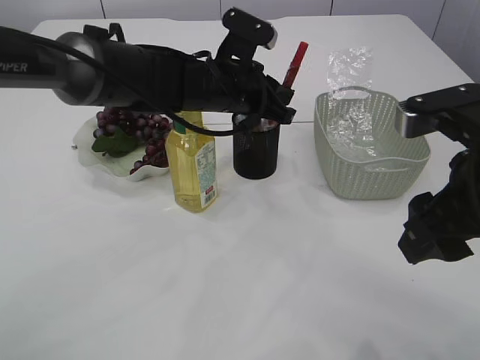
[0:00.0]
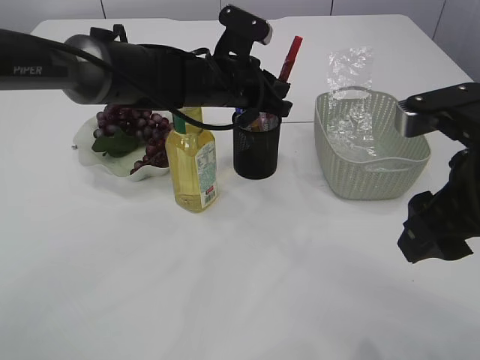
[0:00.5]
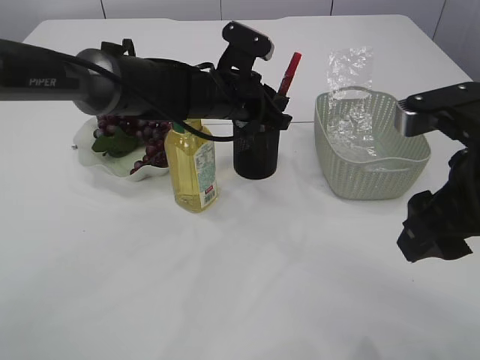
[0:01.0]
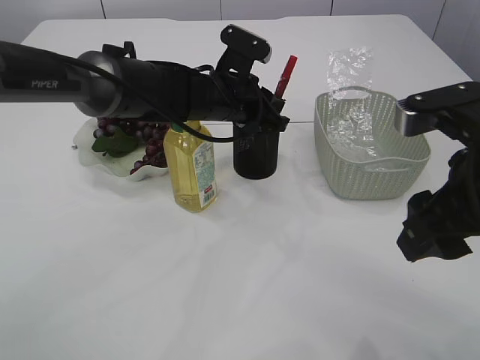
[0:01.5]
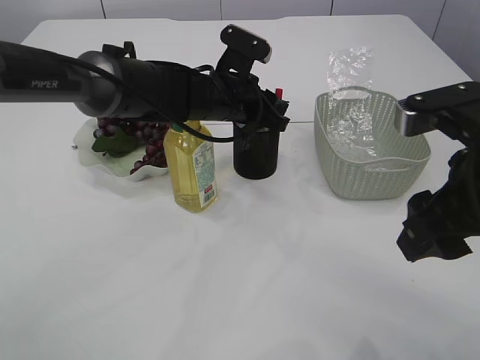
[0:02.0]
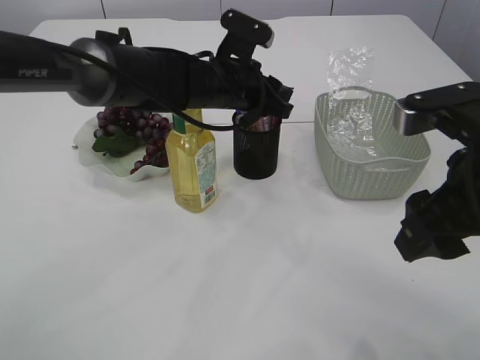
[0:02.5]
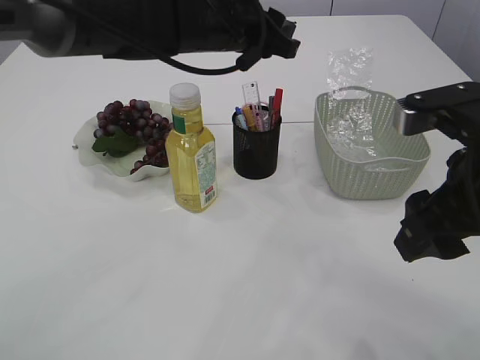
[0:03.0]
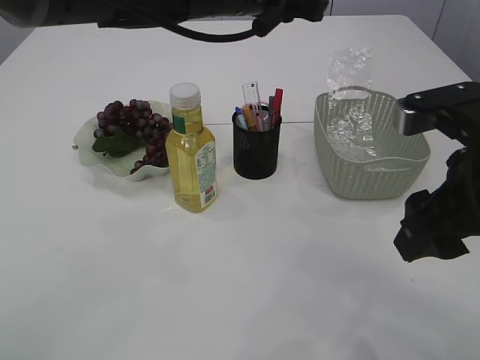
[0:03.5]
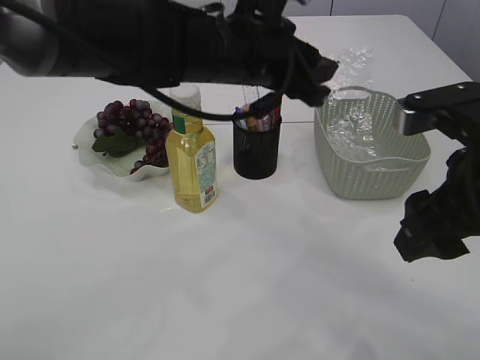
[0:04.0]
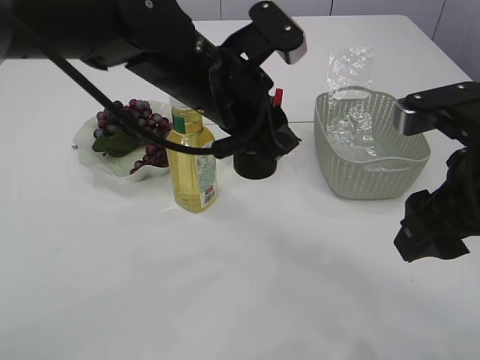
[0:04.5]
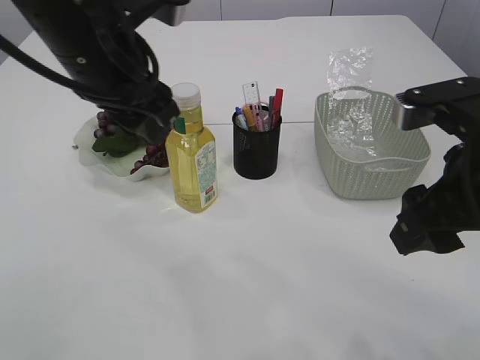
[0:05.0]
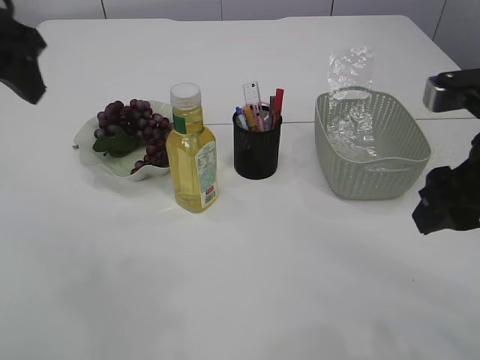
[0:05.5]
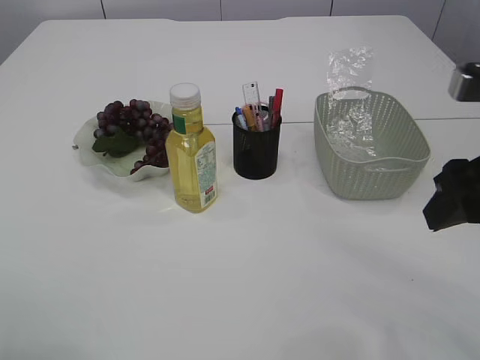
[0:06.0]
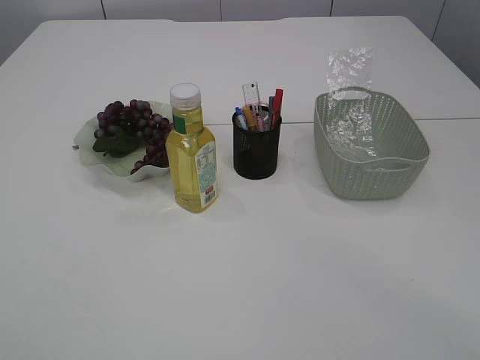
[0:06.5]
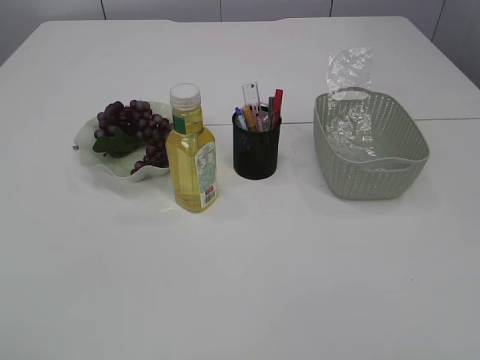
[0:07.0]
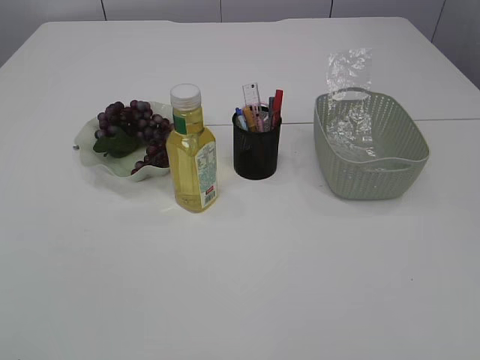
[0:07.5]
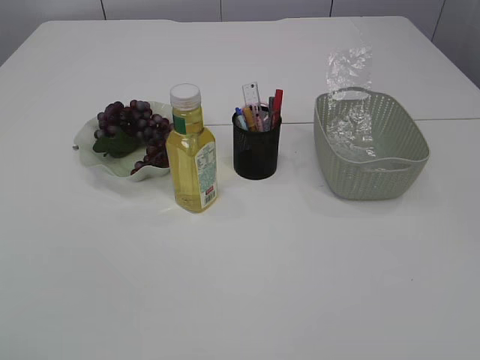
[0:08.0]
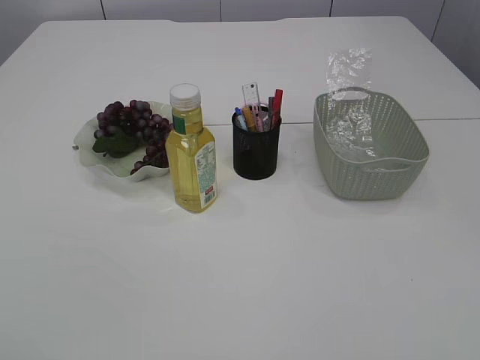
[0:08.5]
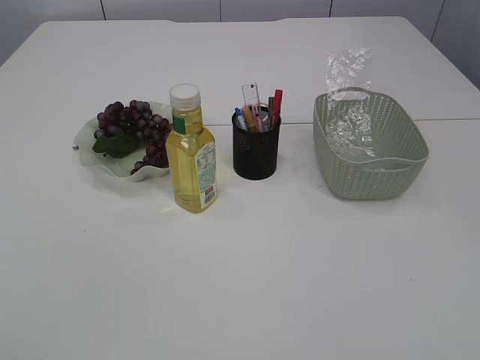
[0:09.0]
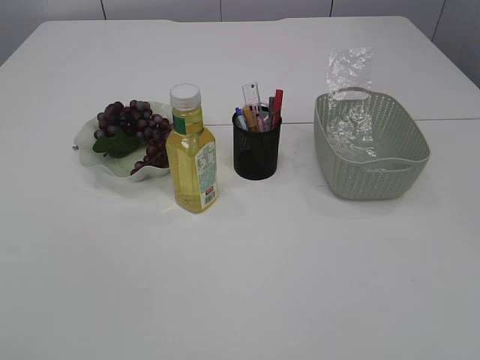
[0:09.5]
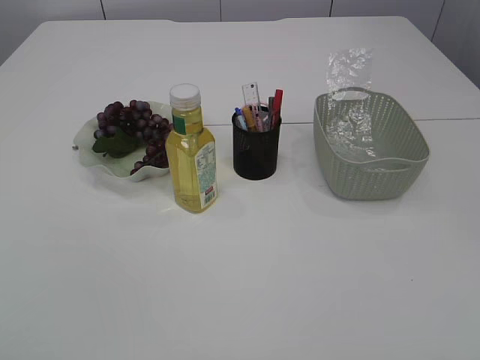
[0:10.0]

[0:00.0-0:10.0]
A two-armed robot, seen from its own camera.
Step, 0:00.0 to 0:02.5: place the red glue into the pen holder.
0:00.0 to 0:02.0: The left gripper opens up.
0:02.0 to 0:04.0: The left gripper is displaced upward and backward by some 15 cm.
0:04.0 to 0:06.0: The left gripper shifts approximately 30 cm to the left and backward.
0:06.0 to 0:08.0: The right gripper is displaced backward by about 25 cm.

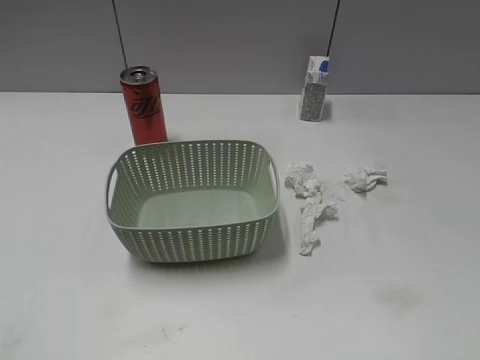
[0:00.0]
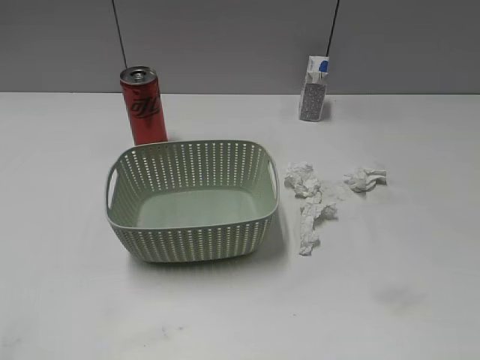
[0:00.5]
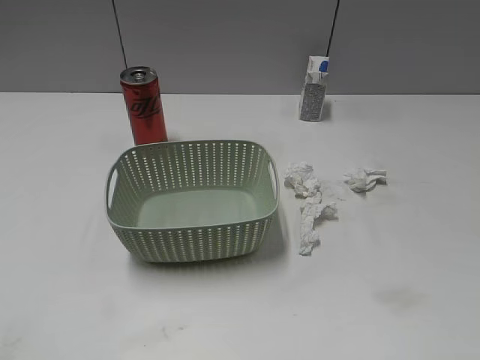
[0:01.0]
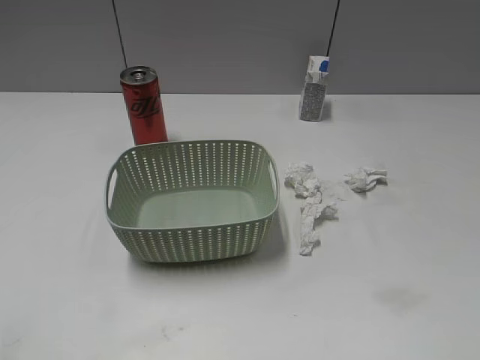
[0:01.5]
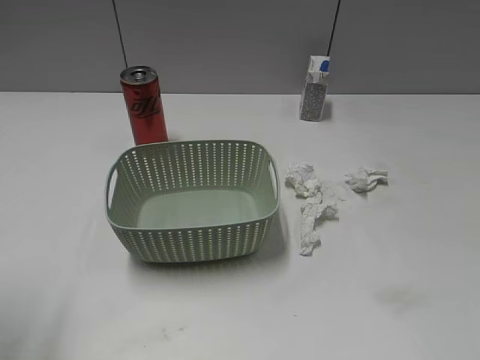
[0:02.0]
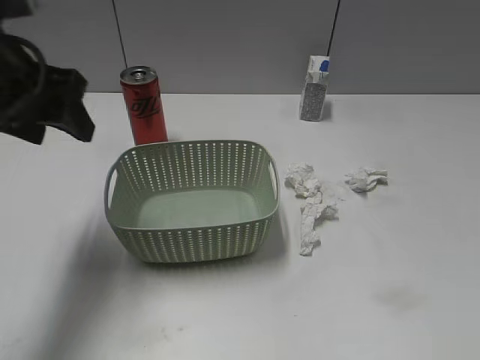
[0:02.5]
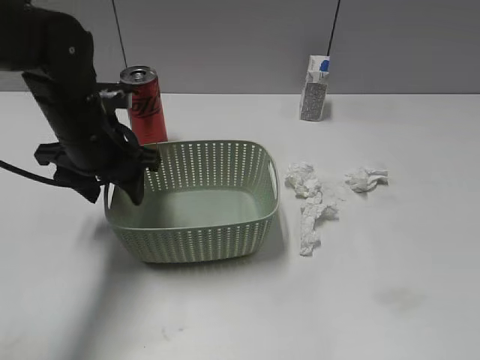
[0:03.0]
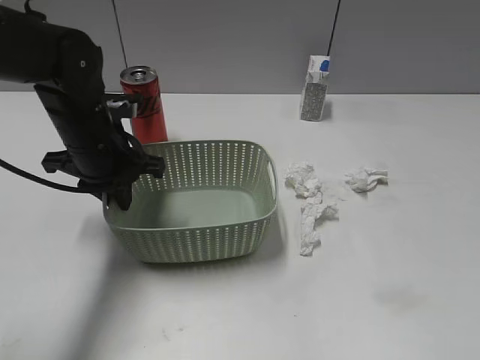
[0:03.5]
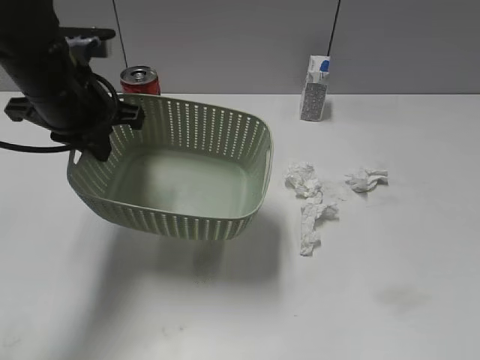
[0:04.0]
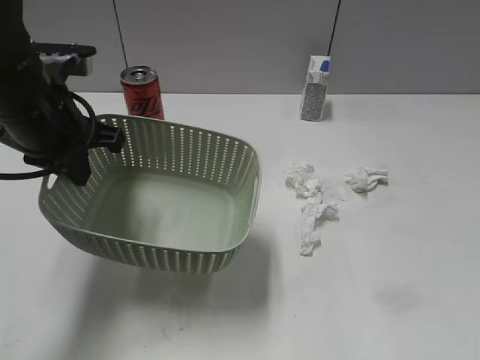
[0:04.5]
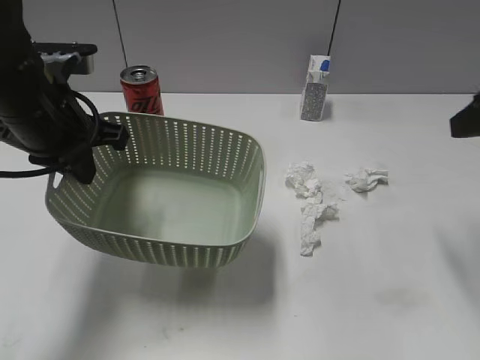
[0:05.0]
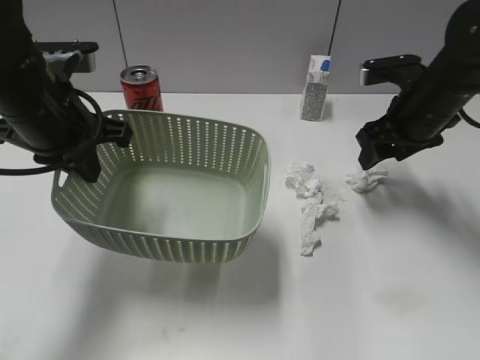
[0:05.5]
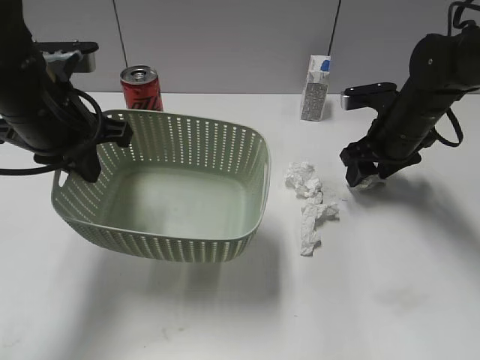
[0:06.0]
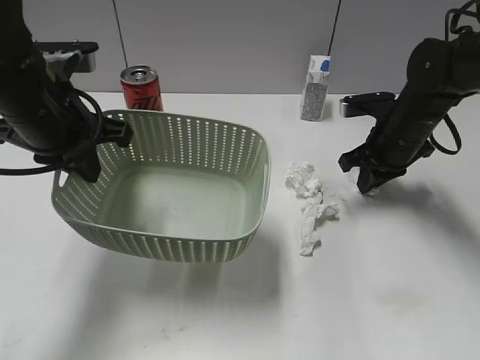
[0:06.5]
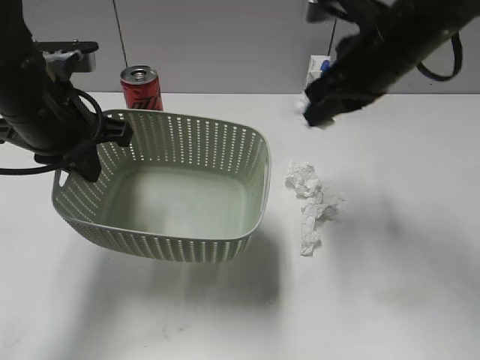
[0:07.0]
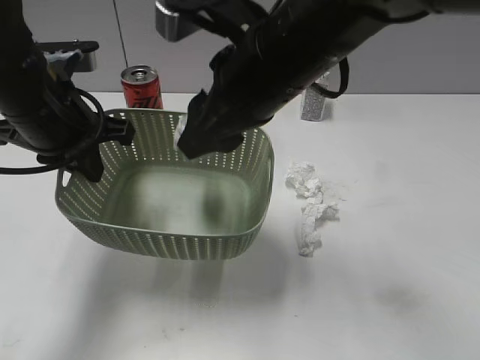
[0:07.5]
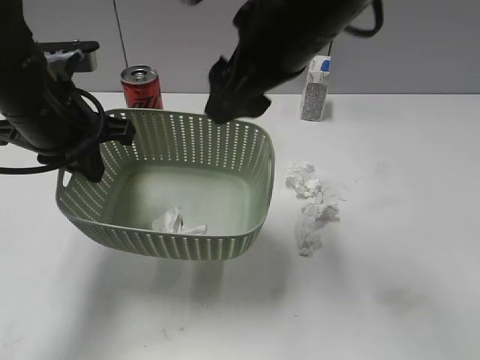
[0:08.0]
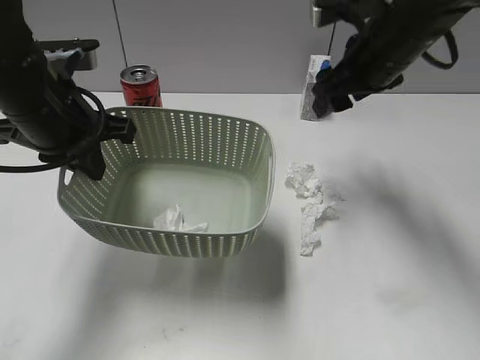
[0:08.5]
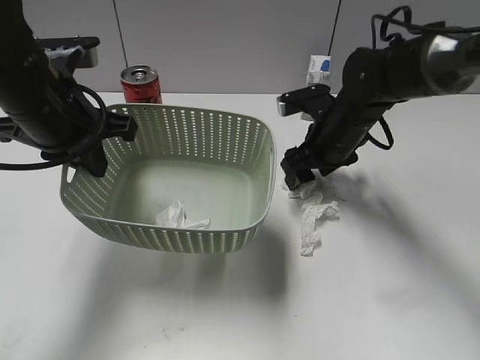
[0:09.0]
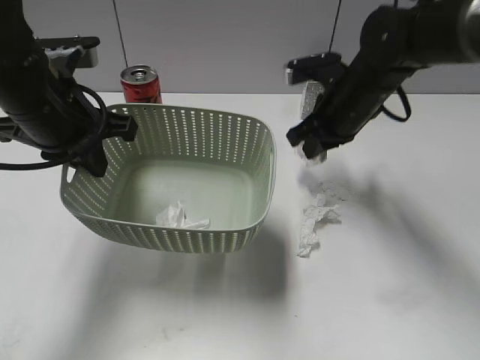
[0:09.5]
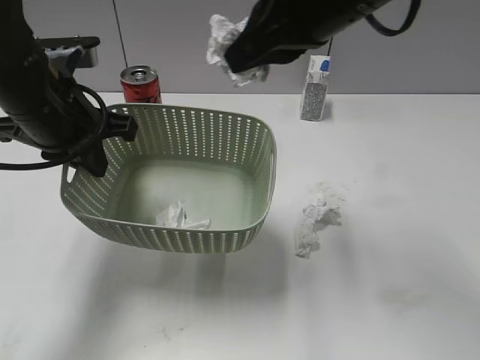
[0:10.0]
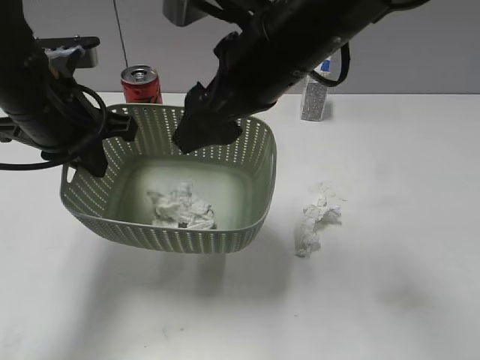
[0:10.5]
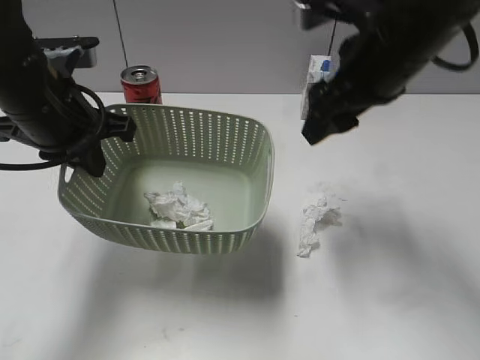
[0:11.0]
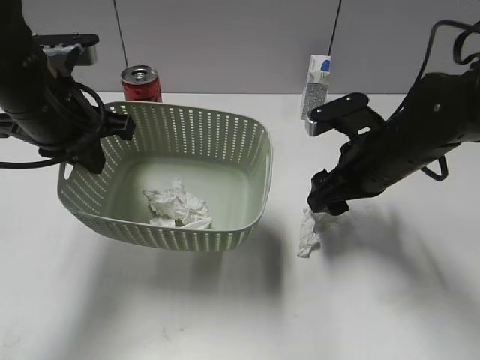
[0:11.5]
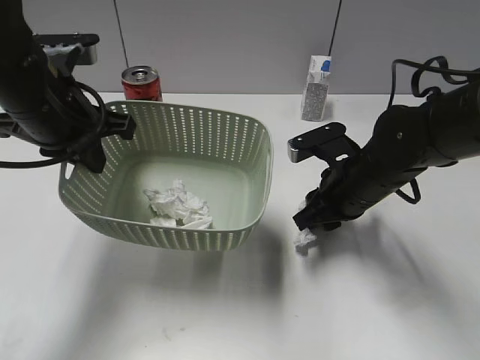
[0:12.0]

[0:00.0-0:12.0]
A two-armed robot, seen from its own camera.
Step, 0:01.5 to 0:03.5: Grasp the basket with left gripper.
Step, 0:04.0 to 0:04.5: Lift the basket with left gripper.
Step, 0:05.0 to 0:06.5: Grasp the waste paper with right gripper.
Step, 0:07.0 to 0:07.5: Place the waste paper in the basket with right gripper.
Step, 0:08.0 to 0:09.0: Grasp the waste paper with right gripper.
Step, 0:09.5 to 0:10.5: Place the waste paper in the basket with right gripper.
0:02.0 to 0:04.0: The left gripper goes roughly 25 cm forward, to the right and downward, and closes up.
0:04.0 to 0:06.0: The right gripper goes approximately 40 cm forward.
0:06.0 to 0:08.0: The right gripper is displaced upward, to the left and backward by some 30 cm, and closes and opens again.
0:08.0 to 0:10.0: The right gripper moves about 20 cm downward and comes back, and closes up.
0:10.0 to 0:12.0: The right gripper heads downward, covering approximately 20 cm, and opens.

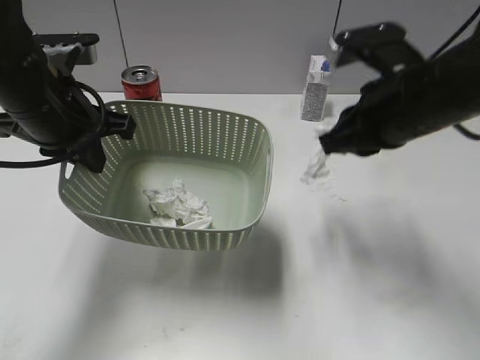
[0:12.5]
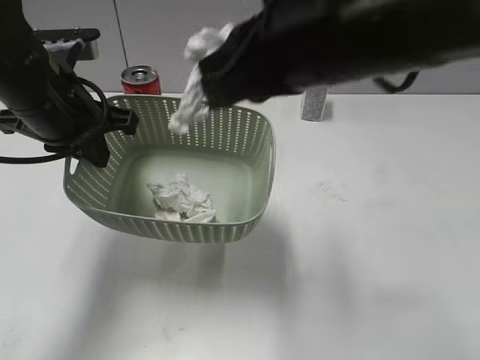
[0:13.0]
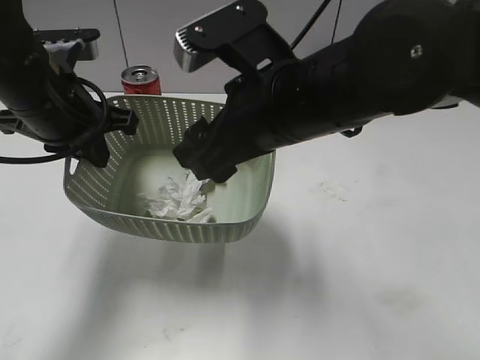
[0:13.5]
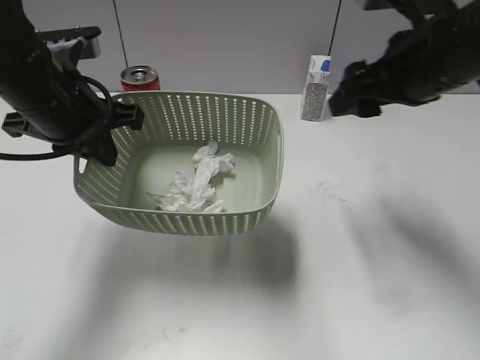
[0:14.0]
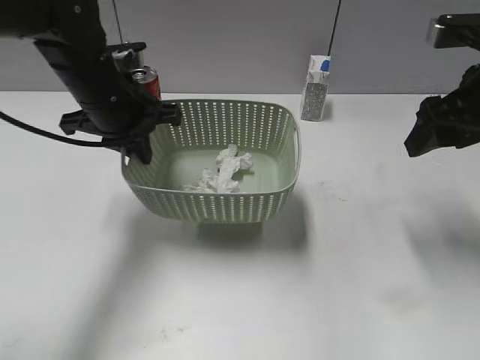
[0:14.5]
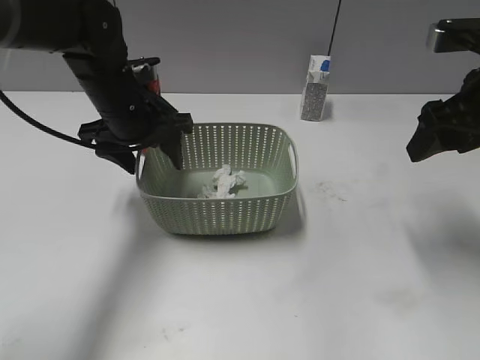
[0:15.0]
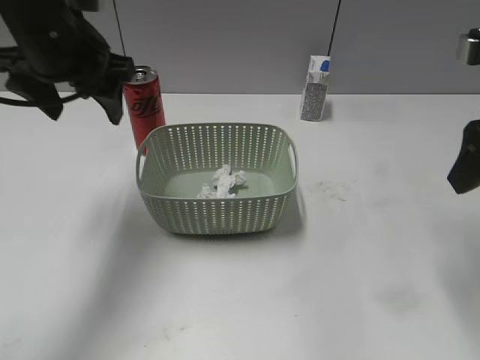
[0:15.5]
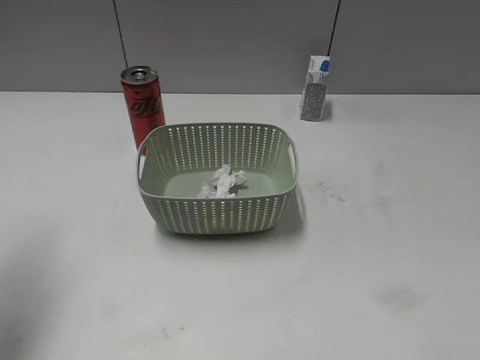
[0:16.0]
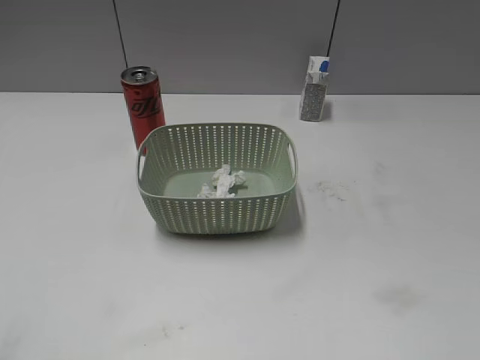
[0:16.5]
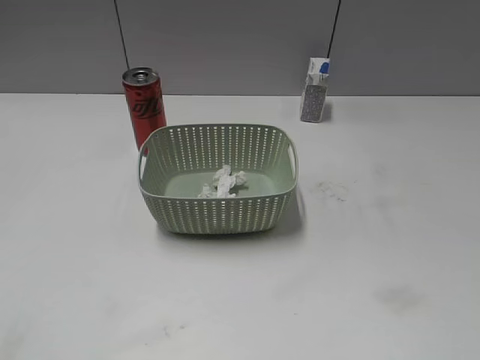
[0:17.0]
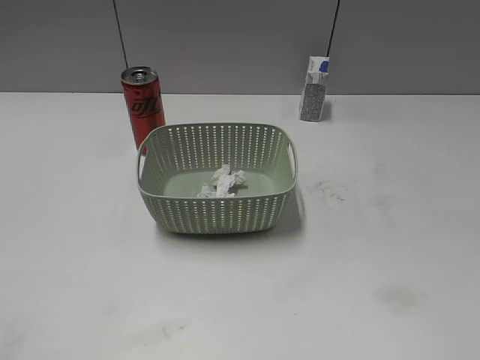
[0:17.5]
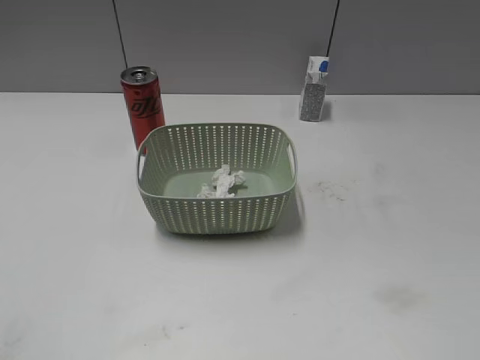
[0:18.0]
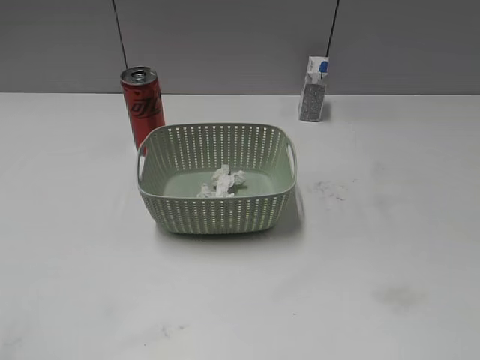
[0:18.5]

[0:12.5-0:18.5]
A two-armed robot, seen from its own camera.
Step, 0:12.5 to 0:13.5: Place the waste paper in the basket with right gripper.
Step, 0:14.0 to 0:15.0: Place the basket on the table with left gripper.
0:12.5 to 0:14.5: The right gripper travels to the right by some 10 cm, and opens up, while the left gripper goes some 5 cm forward.
0:14.5 to 0:16.5: The right gripper heads backward, covering some 30 cm; the left gripper moves backward and to the left, approximately 35 cm, and opens.
